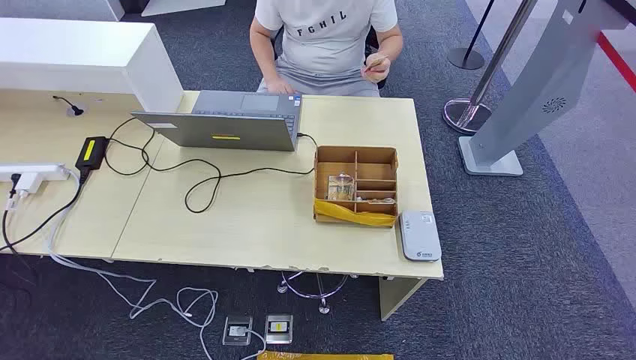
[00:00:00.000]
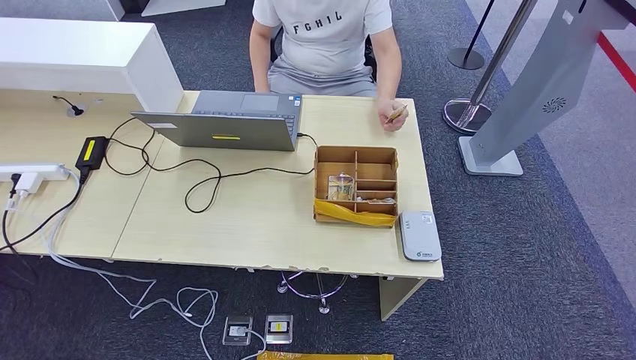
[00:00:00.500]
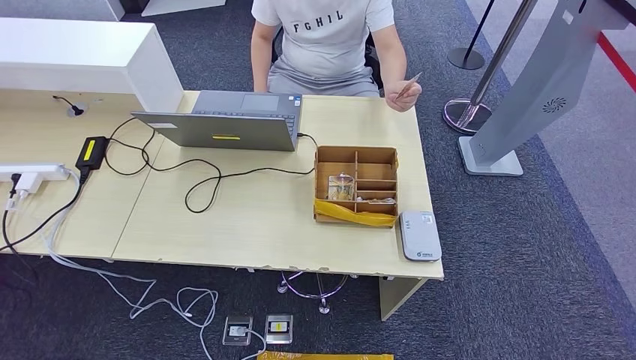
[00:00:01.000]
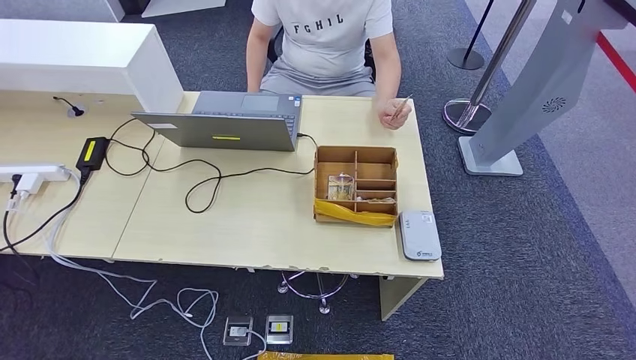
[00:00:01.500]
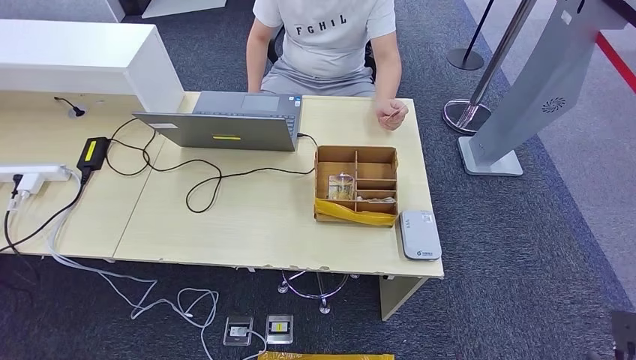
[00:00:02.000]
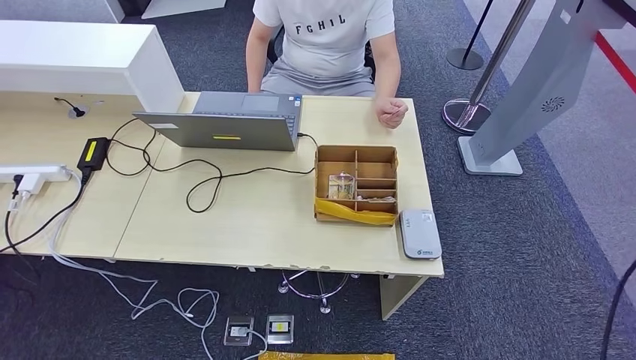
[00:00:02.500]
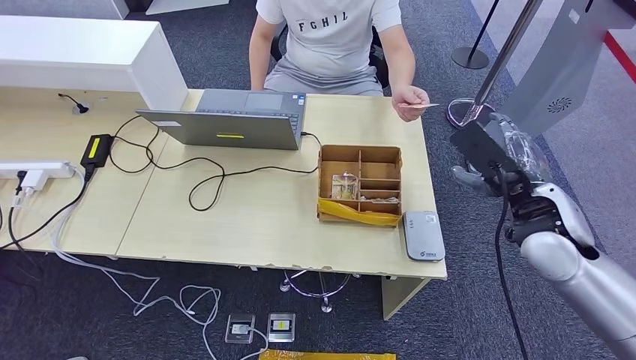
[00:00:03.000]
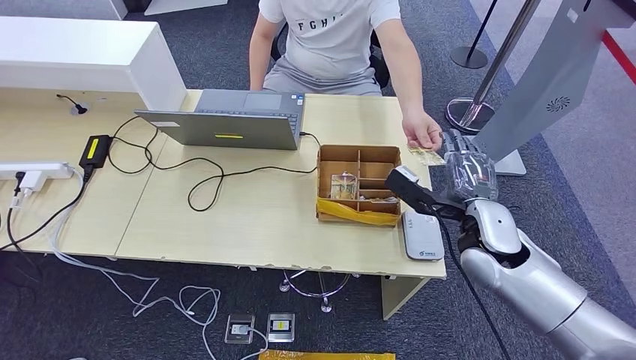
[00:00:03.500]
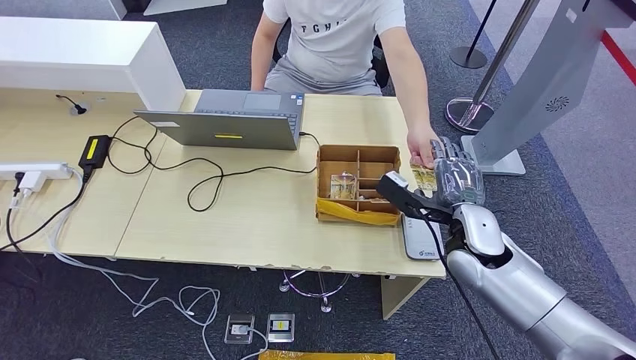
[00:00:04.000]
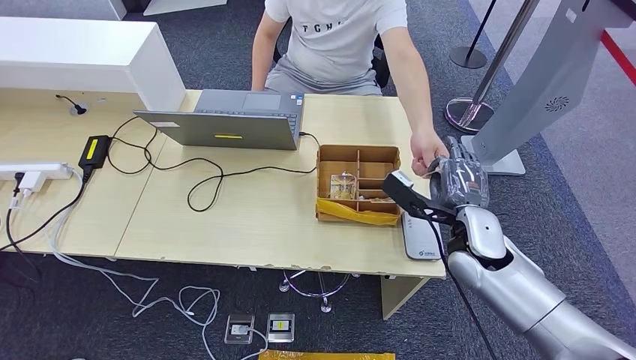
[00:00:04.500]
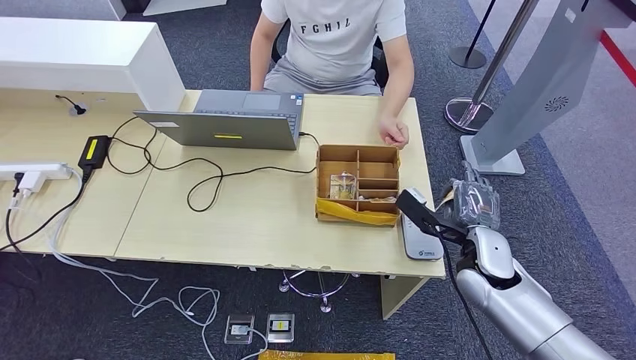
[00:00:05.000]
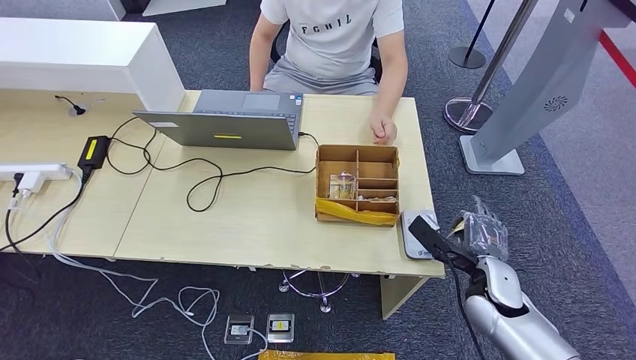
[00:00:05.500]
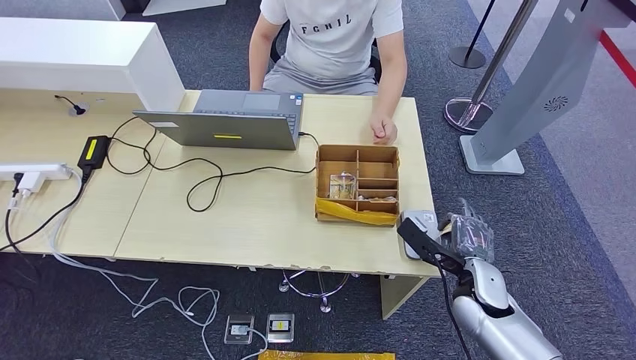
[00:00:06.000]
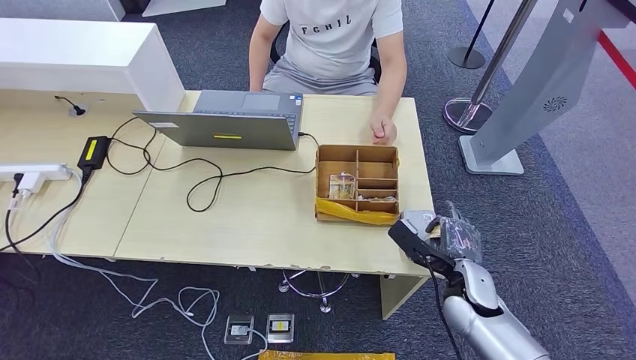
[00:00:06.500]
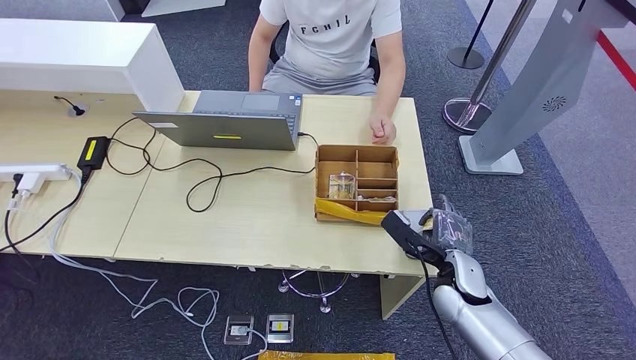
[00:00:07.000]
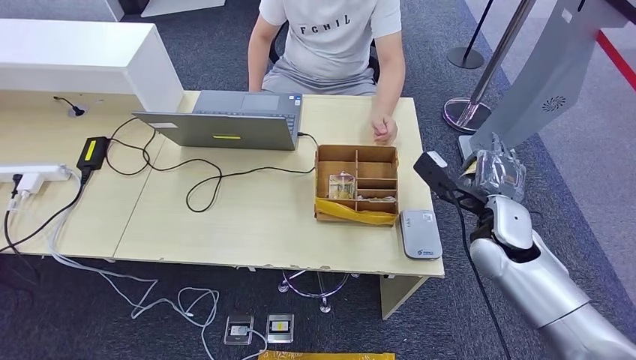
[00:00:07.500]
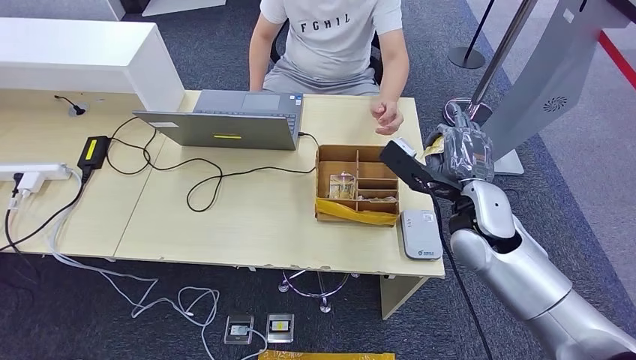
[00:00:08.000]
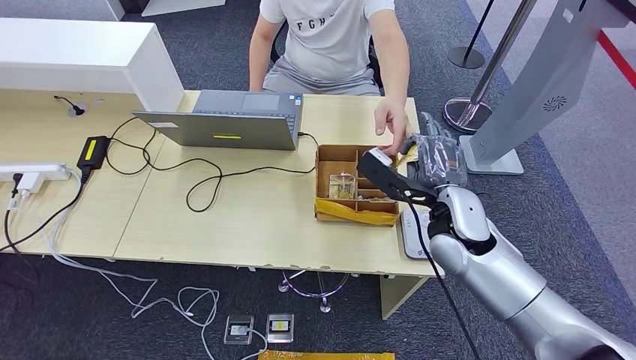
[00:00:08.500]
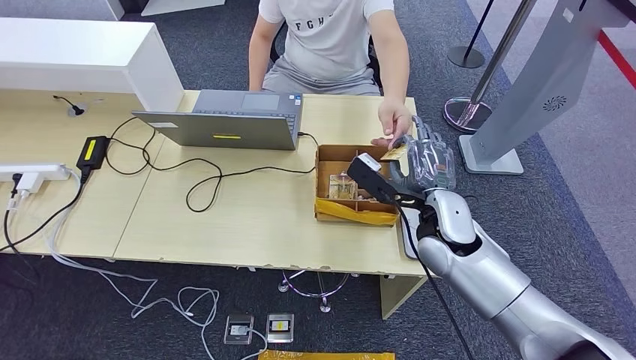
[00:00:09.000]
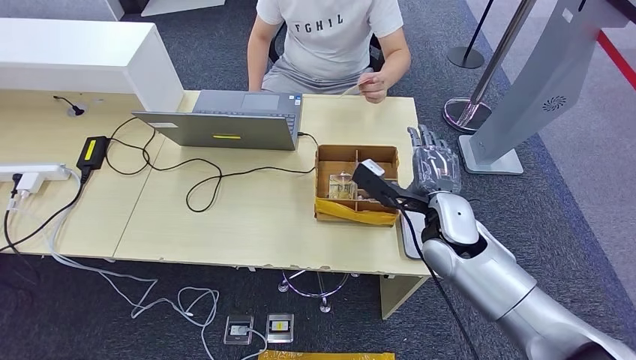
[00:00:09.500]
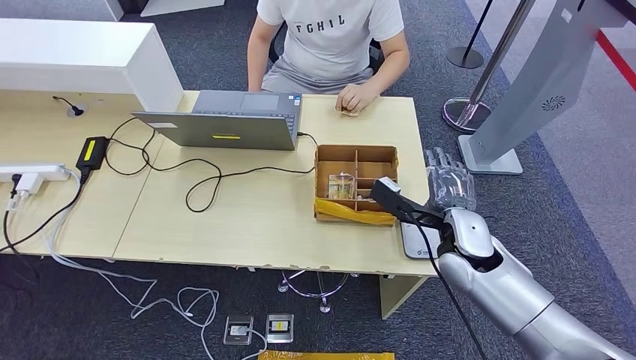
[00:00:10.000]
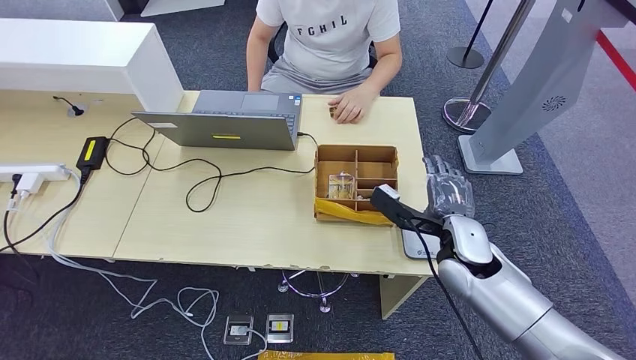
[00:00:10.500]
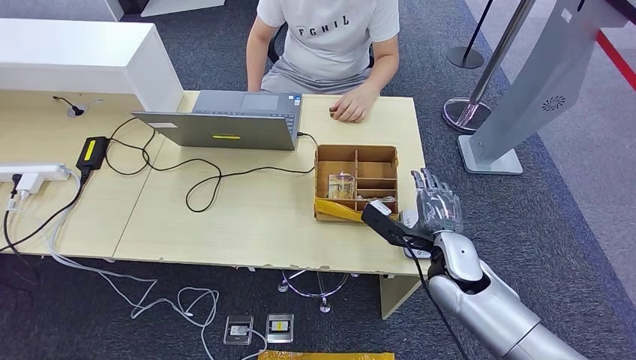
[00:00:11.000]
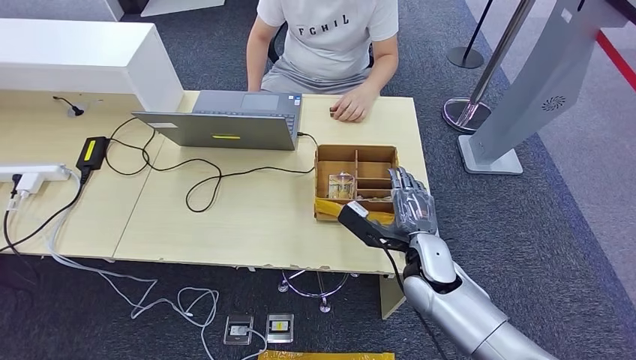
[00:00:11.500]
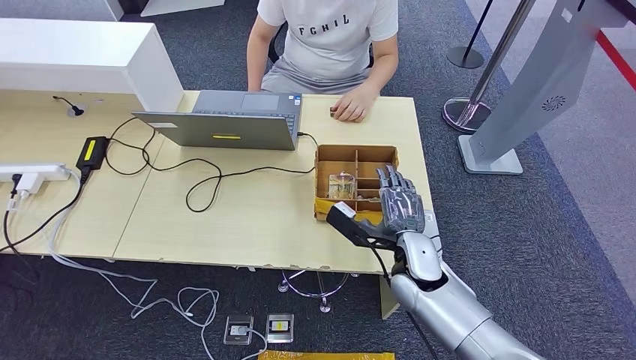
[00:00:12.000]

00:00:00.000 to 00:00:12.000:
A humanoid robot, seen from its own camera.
Step, 00:00:00.000 to 00:00:04.500: Take the ID card from the person's hand.
Step, 00:00:05.000 to 00:00:06.000: Place the ID card on the card reader.
Step, 00:00:06.500 to 00:00:09.500: Hand the ID card to the person.
00:00:02.000 to 00:00:04.000: The right hand goes some 40 cm to the left, forward and upward.
00:00:04.000 to 00:00:06.000: The right hand travels downward and backward by some 10 cm.
00:00:06.000 to 00:00:08.000: The right hand moves upward, some 15 cm.
00:00:08.000 to 00:00:10.000: The right hand is displaced downward by approximately 5 cm.
00:00:10.000 to 00:00:12.000: The right hand moves to the left and downward, about 10 cm.

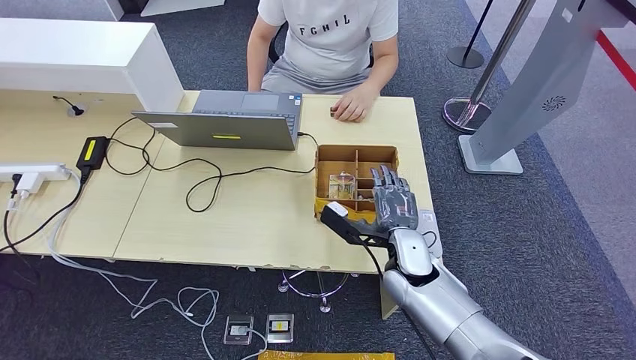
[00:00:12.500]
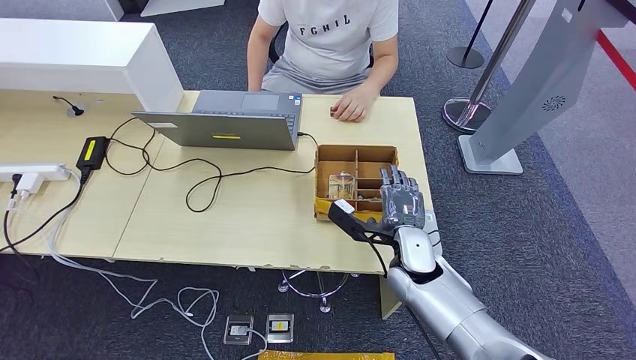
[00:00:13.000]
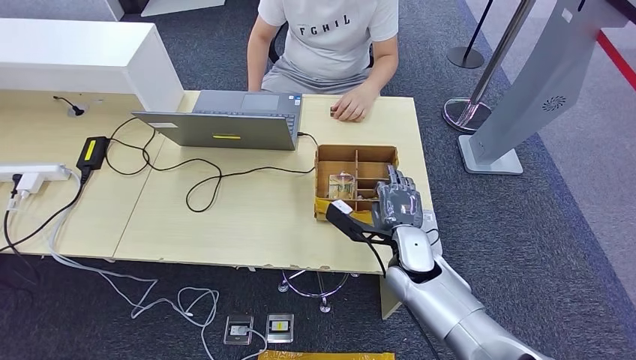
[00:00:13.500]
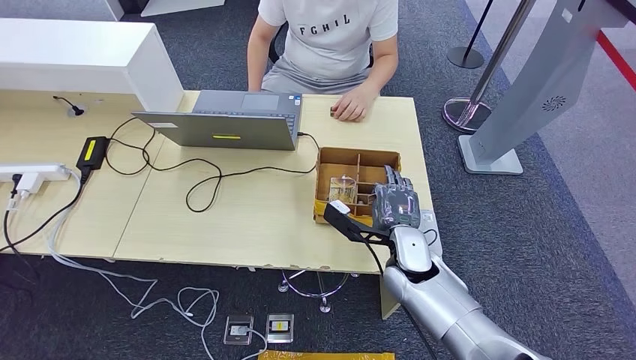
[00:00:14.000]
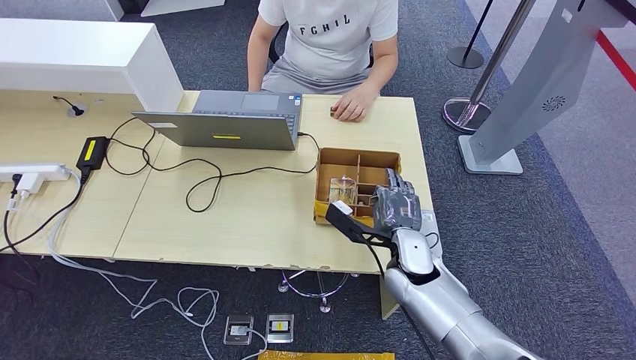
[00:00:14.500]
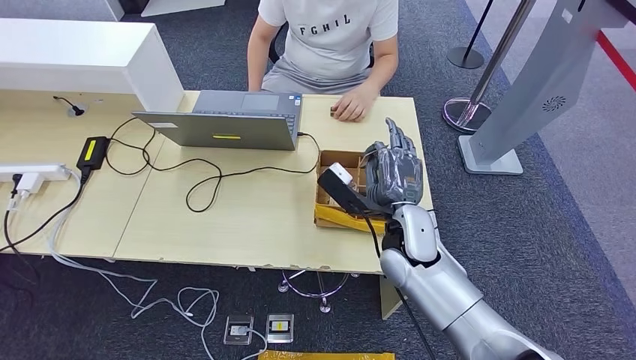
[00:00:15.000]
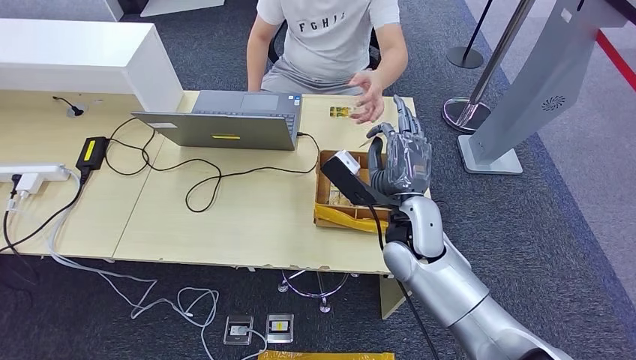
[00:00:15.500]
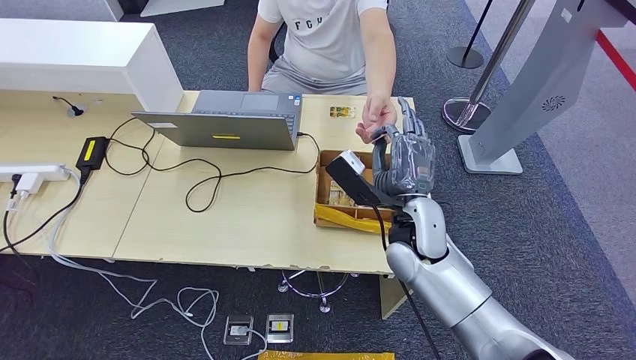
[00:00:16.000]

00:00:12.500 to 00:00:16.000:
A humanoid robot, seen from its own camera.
Step, 00:00:12.500 to 00:00:15.000: Pick up the room key from the key card box.
Step, 00:00:15.500 to 00:00:16.000: Hand the room key to the person.
00:00:12.500 to 00:00:14.500: The hands move only a little.
00:00:14.500 to 00:00:16.000: The right hand heads upward, covering about 10 cm.
